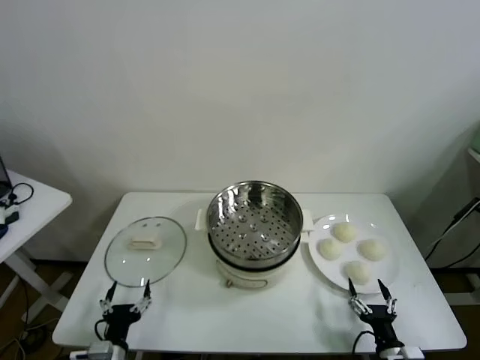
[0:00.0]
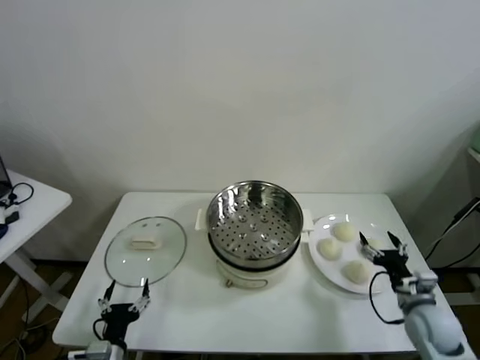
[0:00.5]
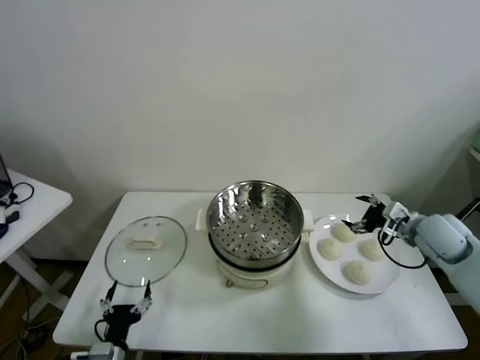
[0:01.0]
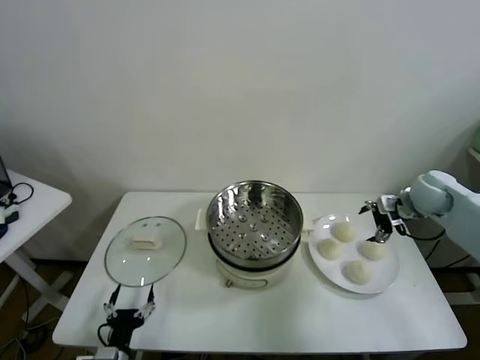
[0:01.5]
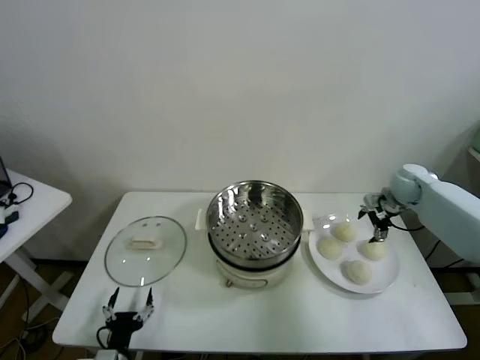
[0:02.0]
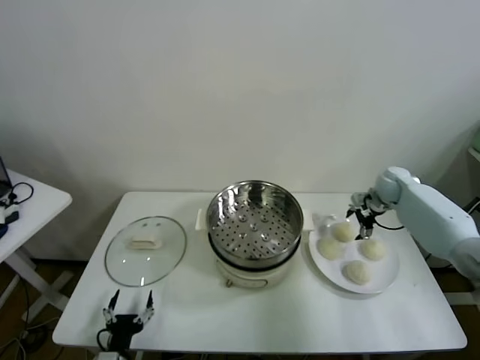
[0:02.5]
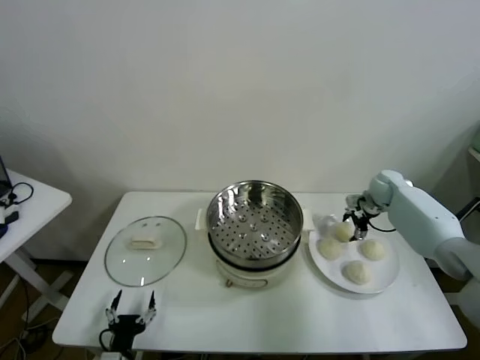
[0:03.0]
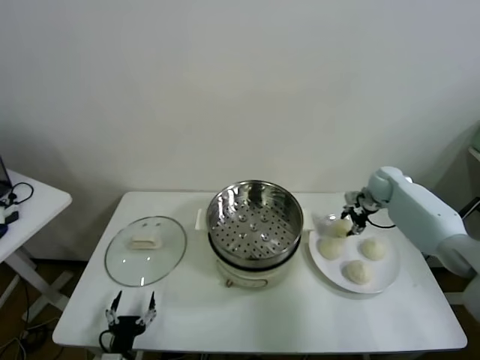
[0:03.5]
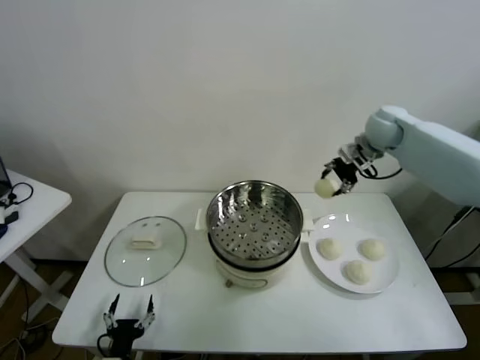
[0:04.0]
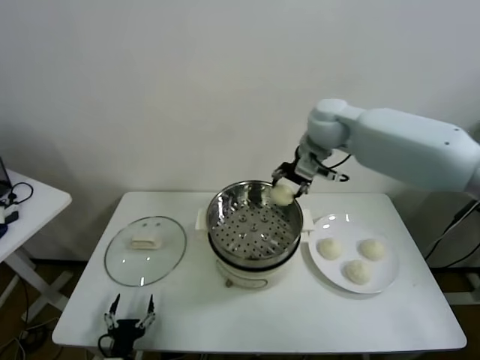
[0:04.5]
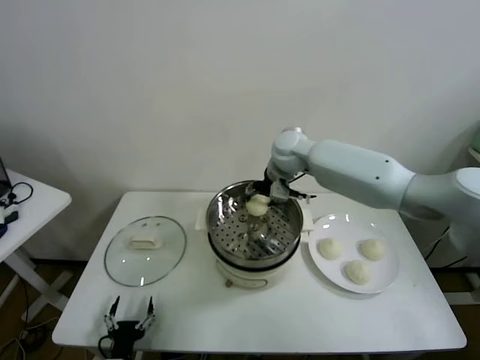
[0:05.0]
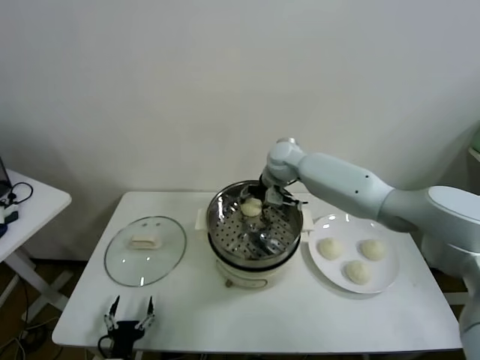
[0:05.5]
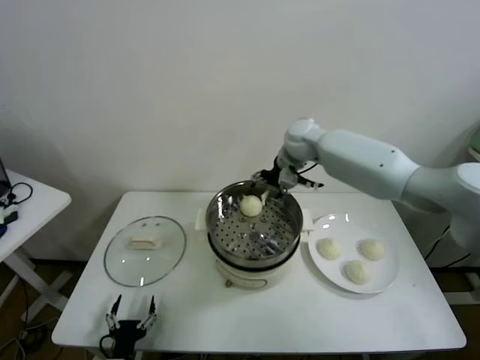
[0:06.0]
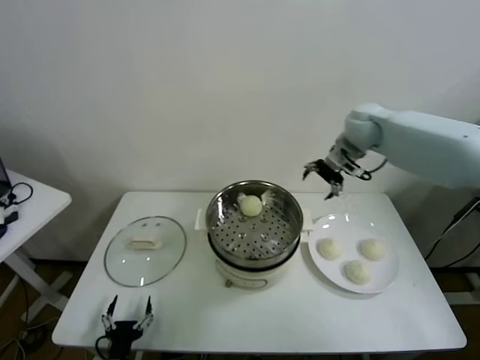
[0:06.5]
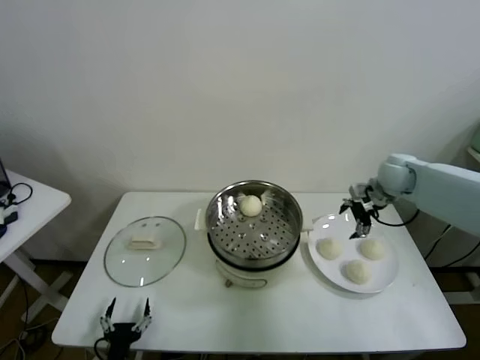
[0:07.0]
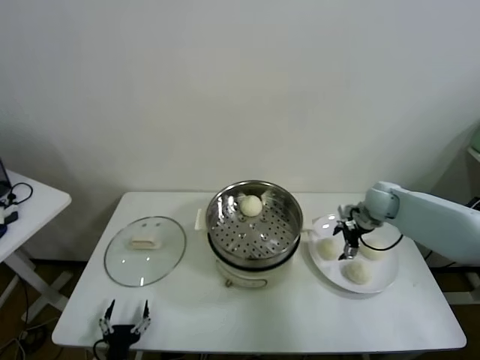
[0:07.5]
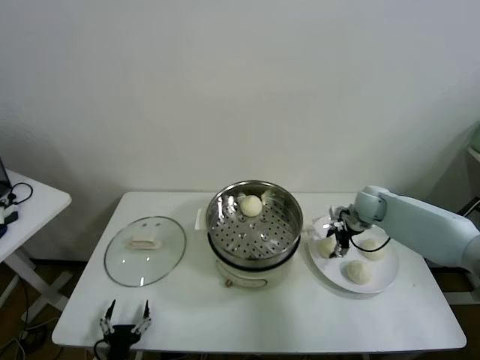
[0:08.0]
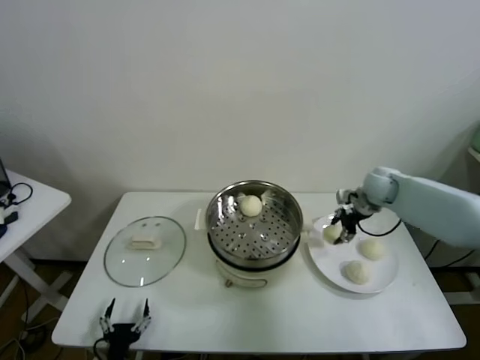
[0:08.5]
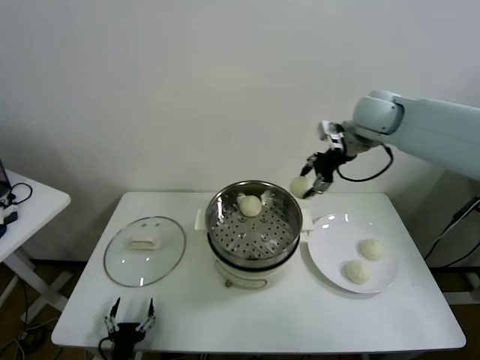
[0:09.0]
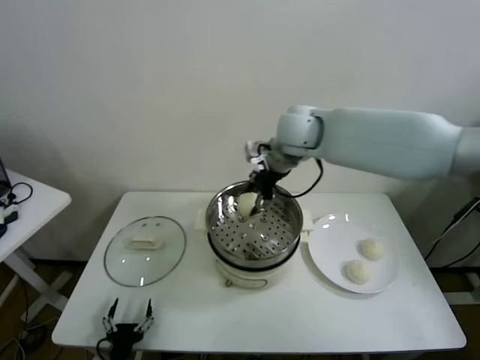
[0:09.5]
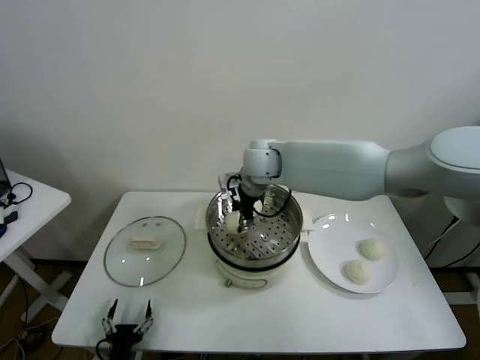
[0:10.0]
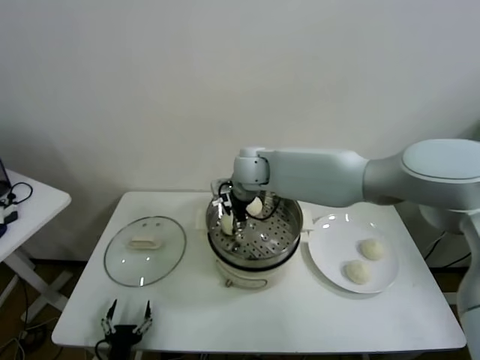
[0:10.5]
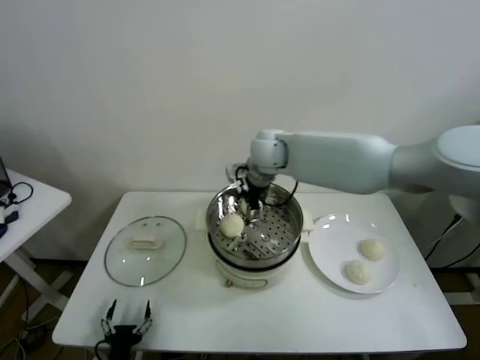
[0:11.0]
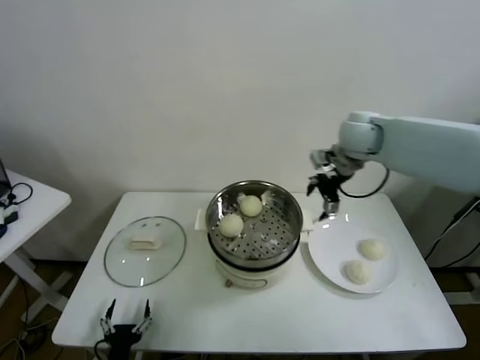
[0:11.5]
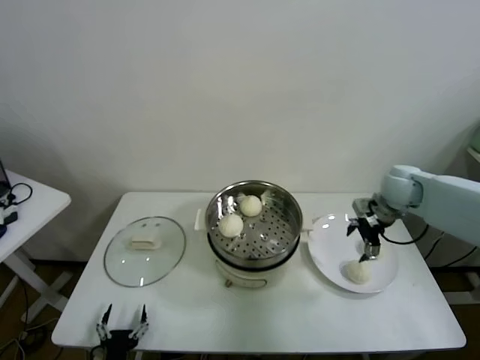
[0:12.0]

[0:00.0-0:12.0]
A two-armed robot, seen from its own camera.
Task of the whole recording: take steamed baozi put them in steamer.
Step, 0:00.0 to 0:03.0: Grasp the baozi in the plate with right gripper.
Step, 0:03.5 to 0:05.5: Place the baozi on the steamer with right gripper.
Step, 0:06.0 to 0:07.5: Grasp the baozi in the plate with right gripper.
Step, 0:08.0 to 0:10.5: Place the baozi on the steamer with right gripper.
0:02.0 to 0:04.0: The right gripper travels upward and to the left by roughly 20 cm, and closes up.
0:04.0 to 0:06.0: The right gripper heads to the left, covering roughly 15 cm, and opens up.
0:06.0 to 0:08.0: The right gripper heads downward and to the right, covering about 25 cm, and closes up.
0:08.0 to 0:10.0: The right gripper is displaced to the left and upward by roughly 35 cm.
0:10.0 to 0:12.0: The right gripper shifts approximately 35 cm to the right, and opens.

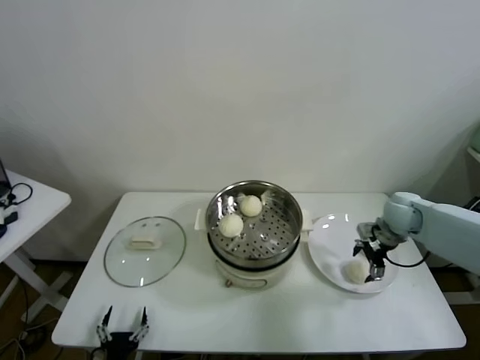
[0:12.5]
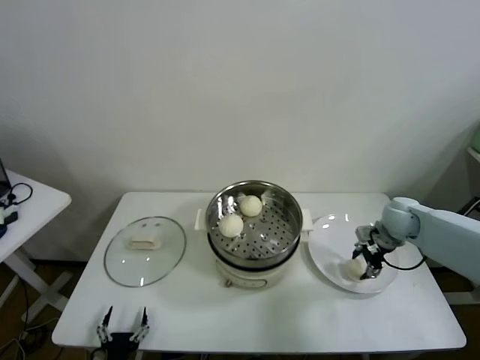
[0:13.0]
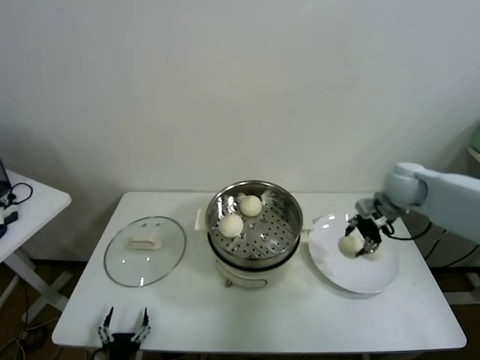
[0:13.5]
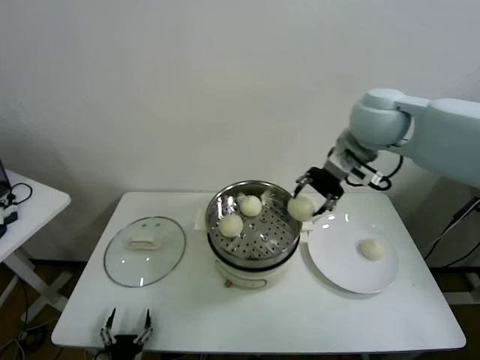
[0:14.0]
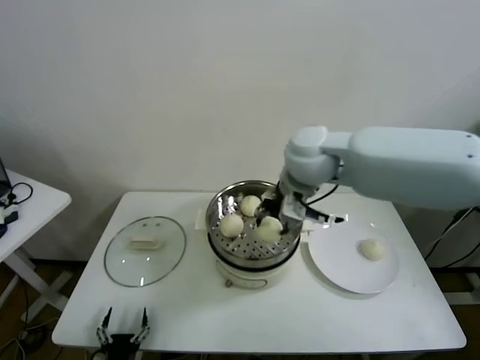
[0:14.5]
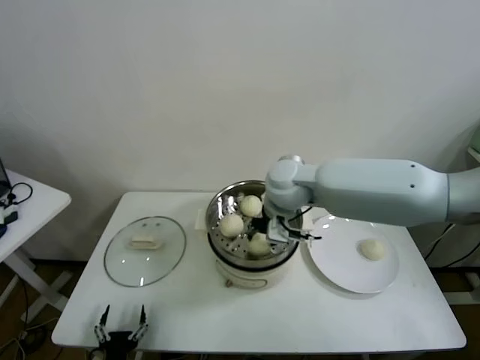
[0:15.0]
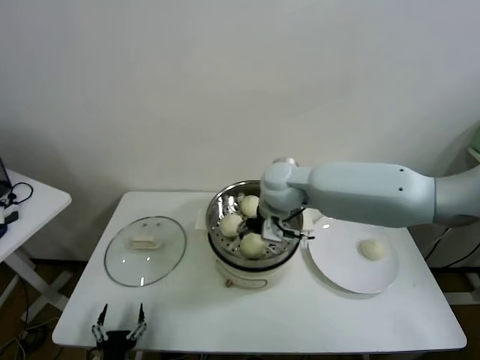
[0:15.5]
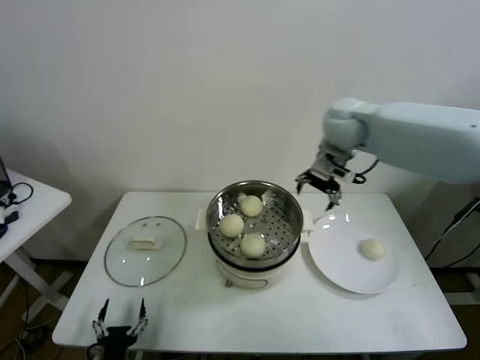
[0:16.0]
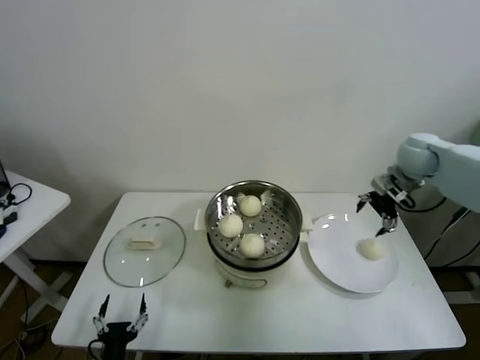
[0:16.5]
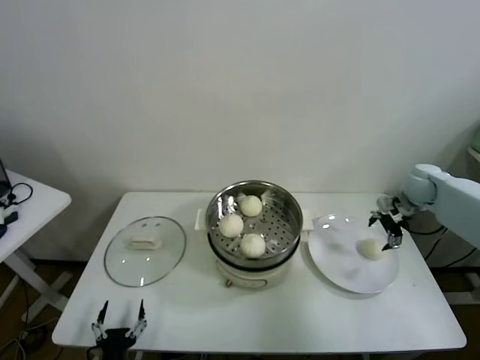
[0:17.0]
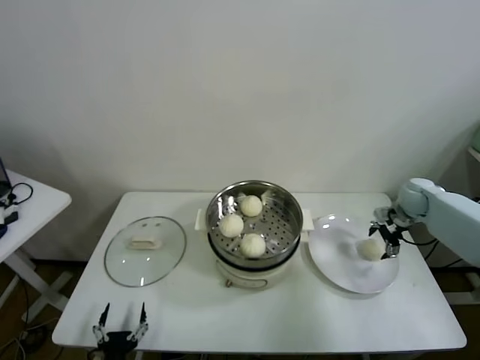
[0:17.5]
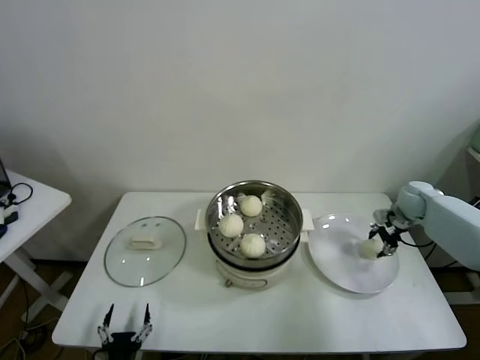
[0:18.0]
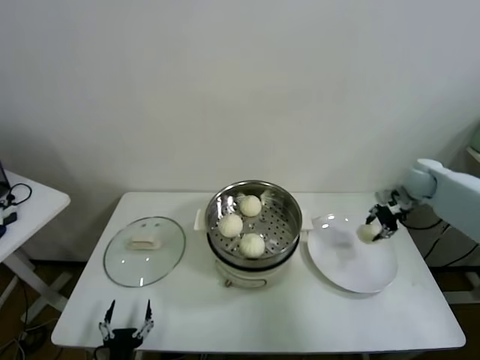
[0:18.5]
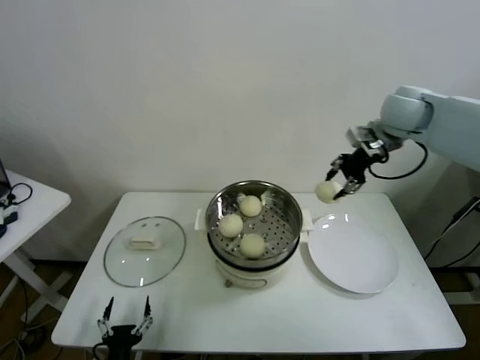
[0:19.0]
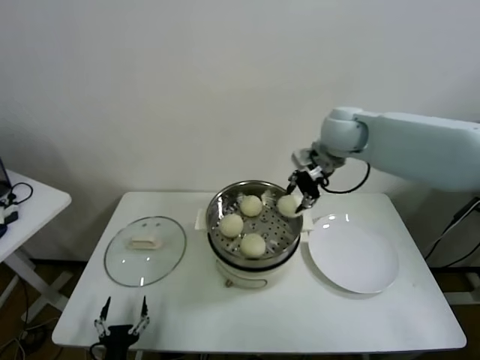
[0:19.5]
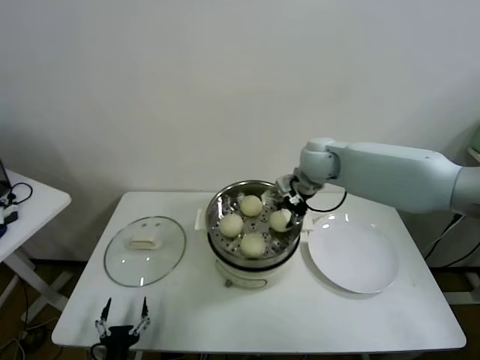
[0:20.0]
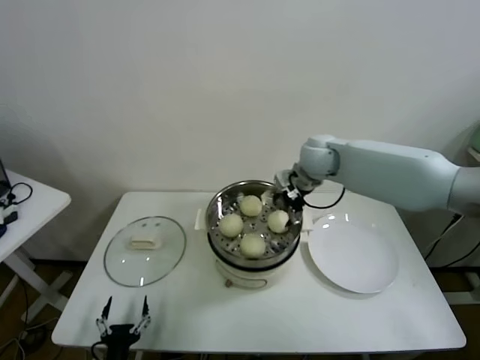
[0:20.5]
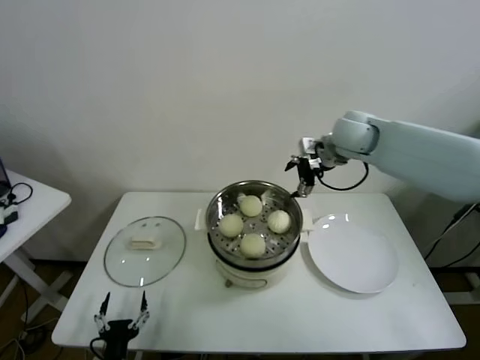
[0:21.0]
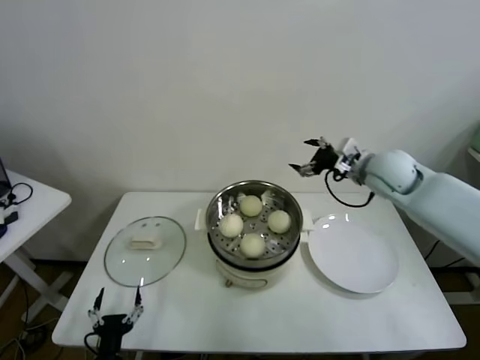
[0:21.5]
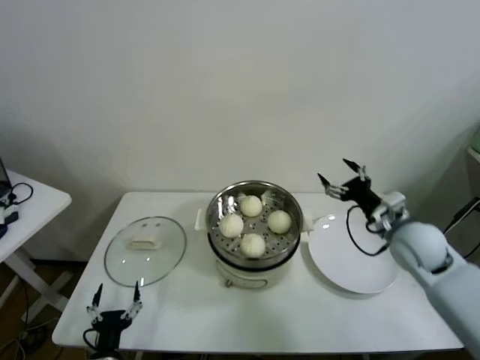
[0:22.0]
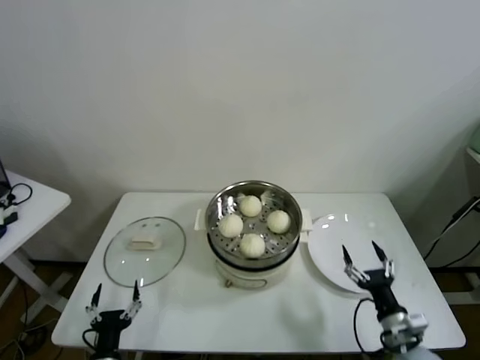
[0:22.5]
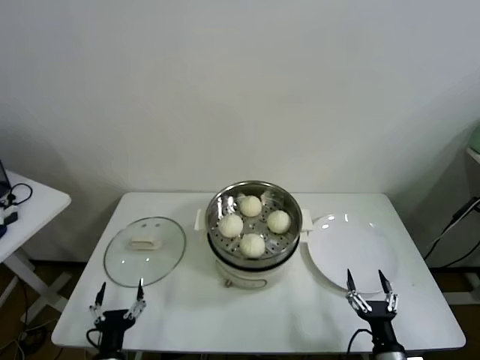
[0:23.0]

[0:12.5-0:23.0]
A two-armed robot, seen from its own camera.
Task of the whole recording: take steamed baozi put them in steamer.
Step, 0:13.0 to 0:15.0: Place the baozi on the steamer with right gripper.
Step, 0:16.0 to 0:17.5: Grasp the baozi in the plate with right gripper.
Step, 0:18.0 to 0:20.0: Place the baozi on the steamer with right gripper.
0:12.5 to 0:14.5: The right gripper goes about 35 cm to the left and upward, and closes up.
0:14.5 to 0:16.5: The right gripper moves to the right, about 30 cm, and opens up.
0:16.5 to 0:19.0: The right gripper goes about 15 cm upward and to the left, and closes its fingers.
0:19.0 to 0:21.0: The right gripper moves to the left and downward, about 10 cm, and opens its fingers.
0:21.0 to 0:23.0: The right gripper heads backward and downward, covering some 60 cm.

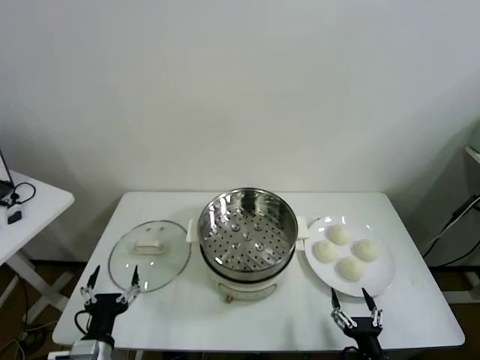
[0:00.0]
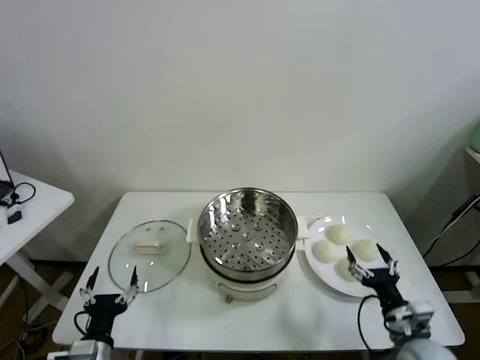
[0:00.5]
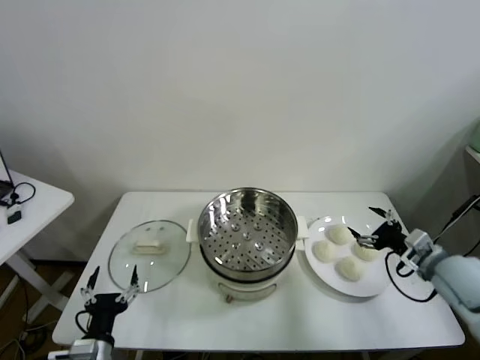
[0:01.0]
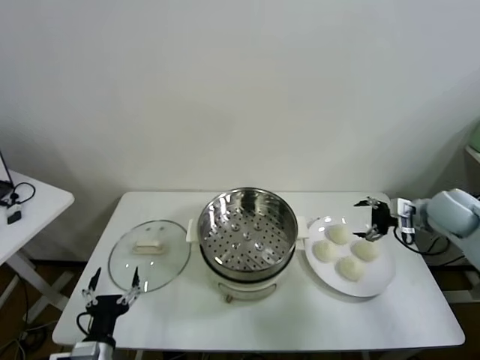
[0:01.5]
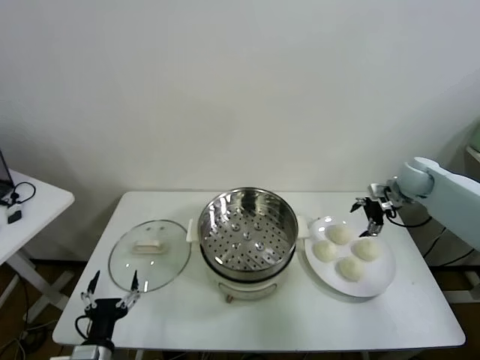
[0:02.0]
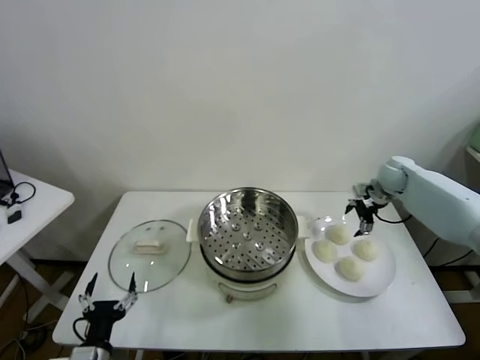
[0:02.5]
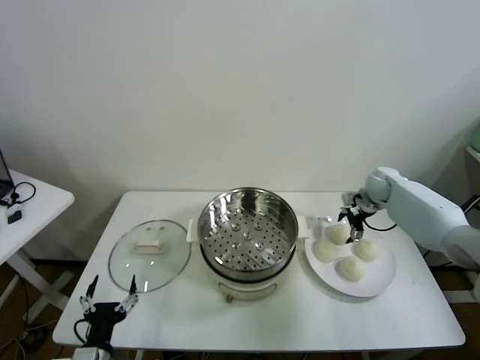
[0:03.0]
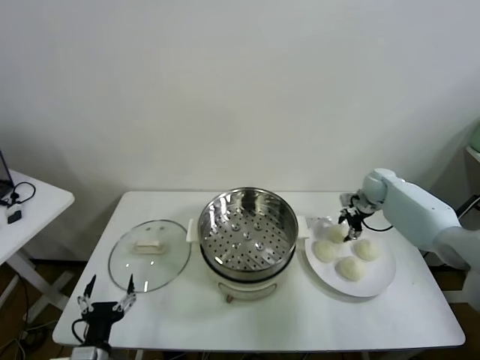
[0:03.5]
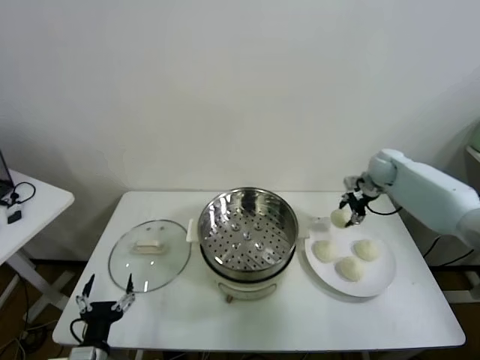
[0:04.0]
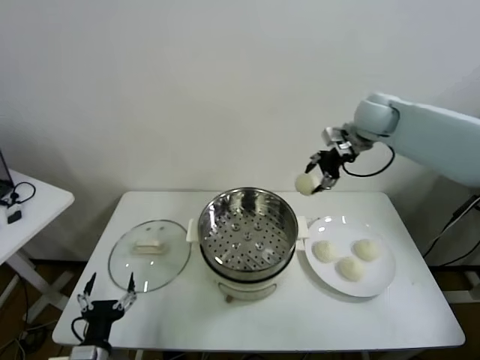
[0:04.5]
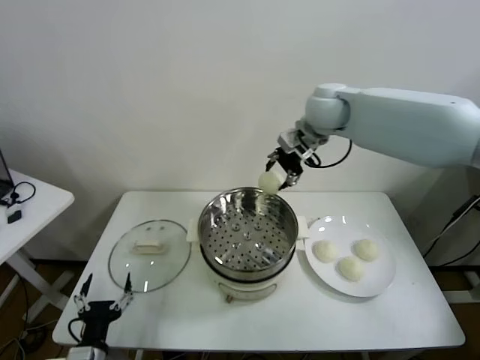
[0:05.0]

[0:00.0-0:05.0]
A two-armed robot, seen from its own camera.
Task of the whole recording: take steamed baozi put them in steamer.
Step, 0:00.0 to 0:03.5: Grasp the baozi in the plate with right gripper.
0:02.5 to 0:05.0: The right gripper shifts roughly 35 cm to the left and upward, and closes its fingers.
